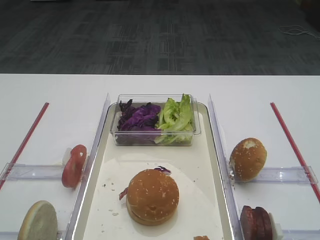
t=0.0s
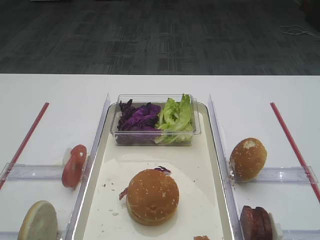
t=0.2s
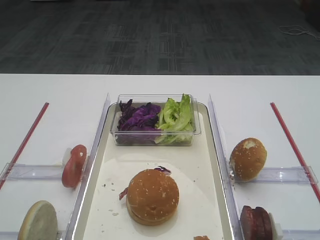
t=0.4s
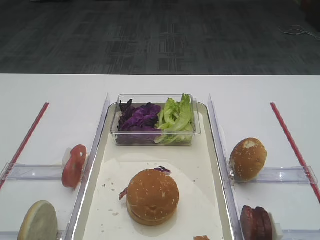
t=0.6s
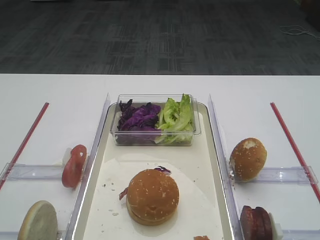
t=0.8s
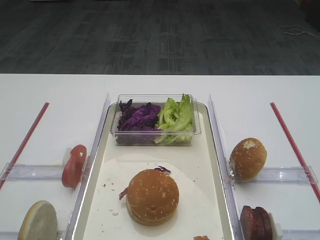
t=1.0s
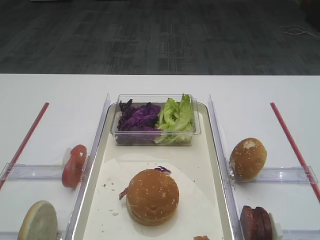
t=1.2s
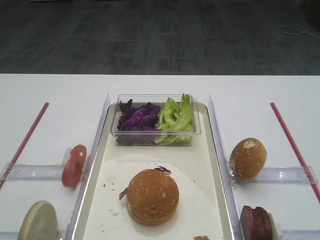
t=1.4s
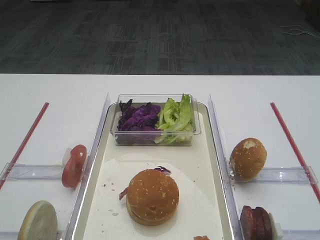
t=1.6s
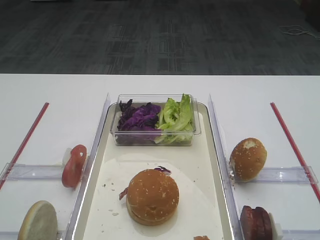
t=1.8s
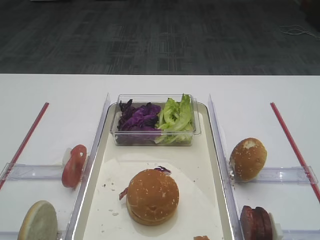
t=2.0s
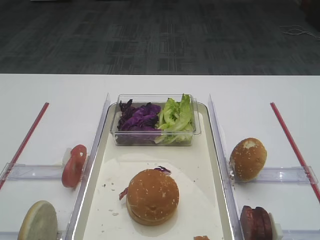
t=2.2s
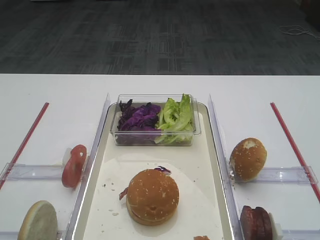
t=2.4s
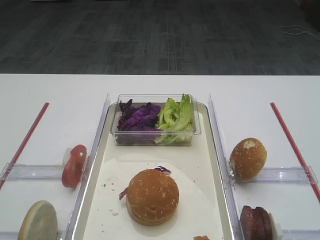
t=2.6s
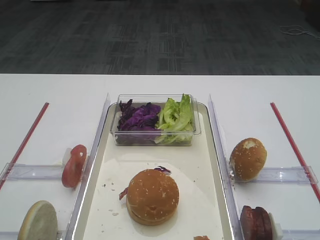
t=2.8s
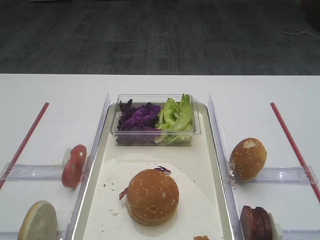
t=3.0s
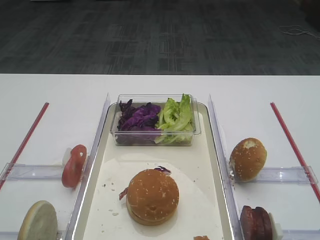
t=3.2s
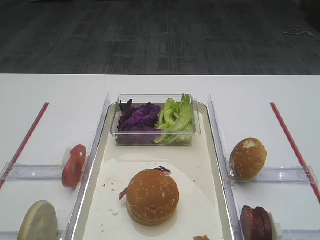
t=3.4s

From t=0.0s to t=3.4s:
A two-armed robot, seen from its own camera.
From t=0.0s to t=3.4s: The two grippers keep their place.

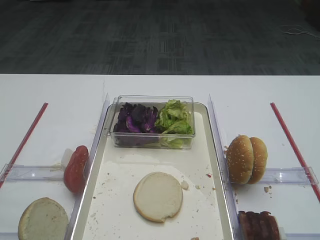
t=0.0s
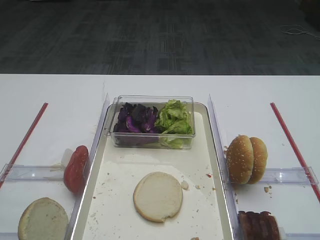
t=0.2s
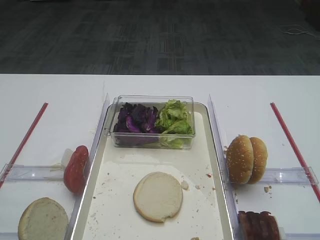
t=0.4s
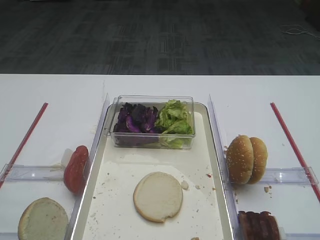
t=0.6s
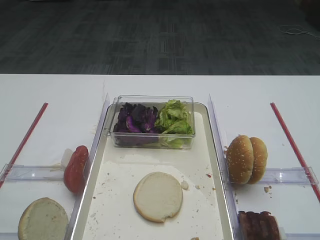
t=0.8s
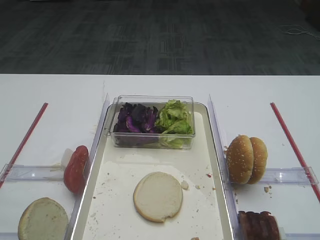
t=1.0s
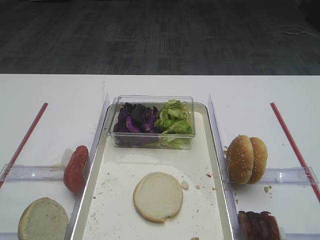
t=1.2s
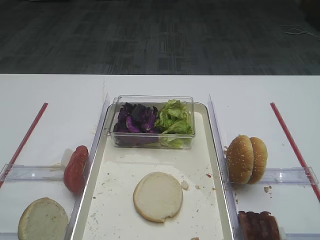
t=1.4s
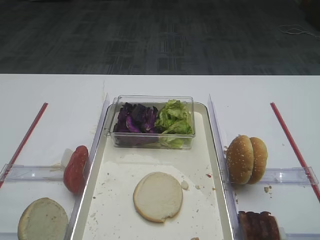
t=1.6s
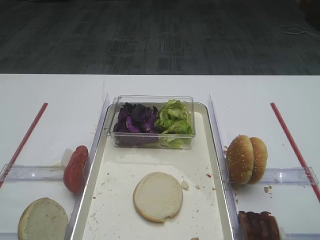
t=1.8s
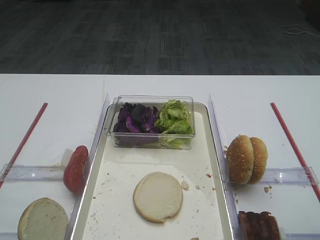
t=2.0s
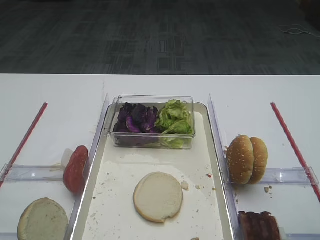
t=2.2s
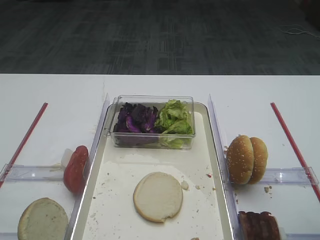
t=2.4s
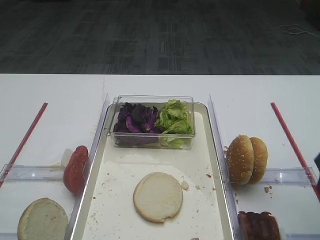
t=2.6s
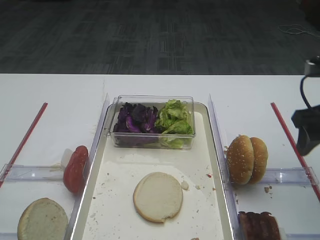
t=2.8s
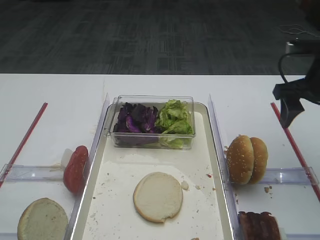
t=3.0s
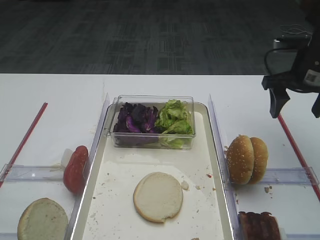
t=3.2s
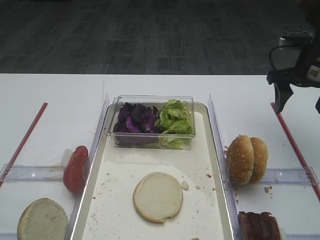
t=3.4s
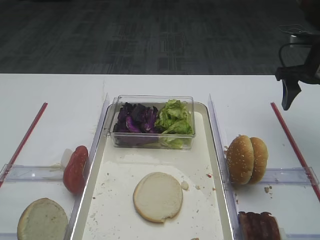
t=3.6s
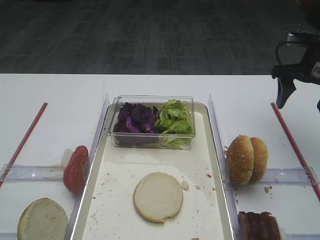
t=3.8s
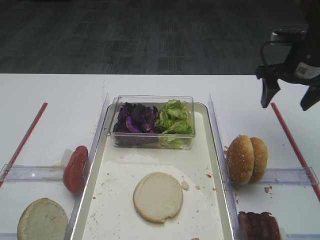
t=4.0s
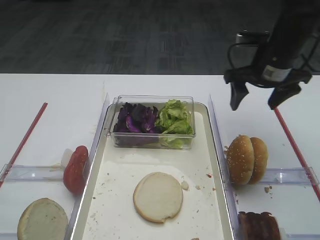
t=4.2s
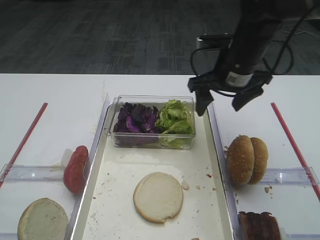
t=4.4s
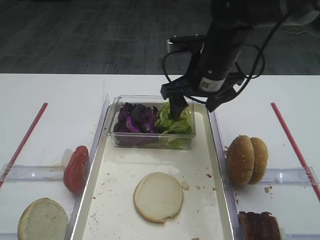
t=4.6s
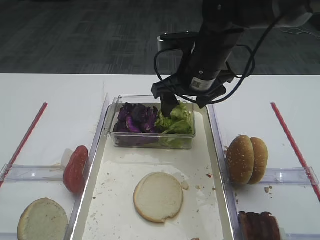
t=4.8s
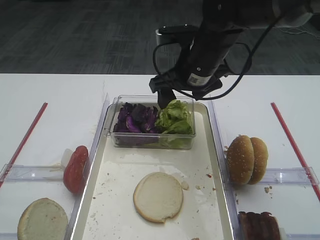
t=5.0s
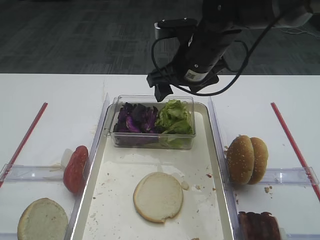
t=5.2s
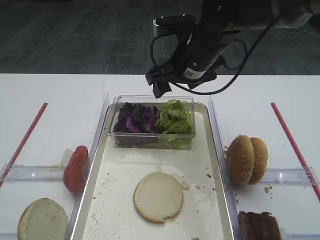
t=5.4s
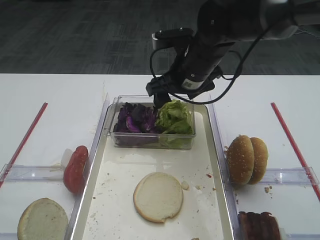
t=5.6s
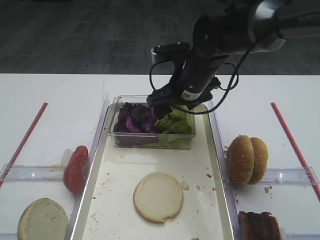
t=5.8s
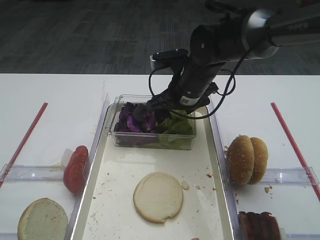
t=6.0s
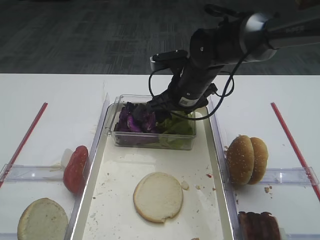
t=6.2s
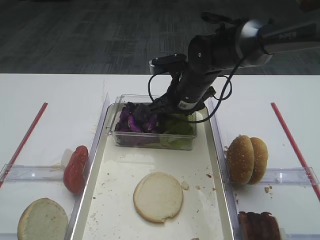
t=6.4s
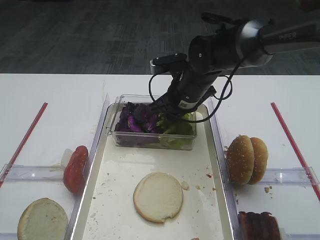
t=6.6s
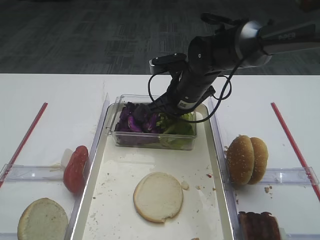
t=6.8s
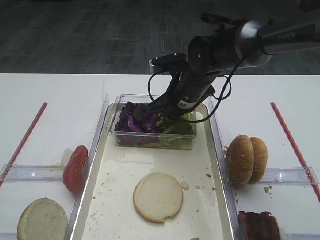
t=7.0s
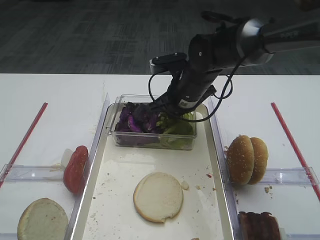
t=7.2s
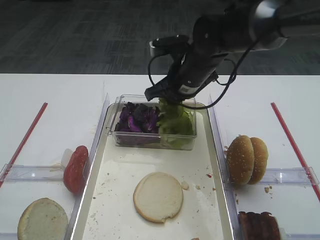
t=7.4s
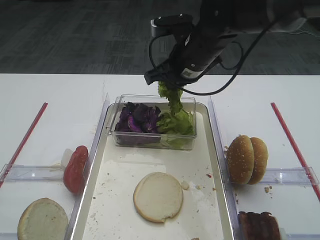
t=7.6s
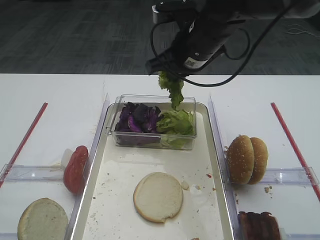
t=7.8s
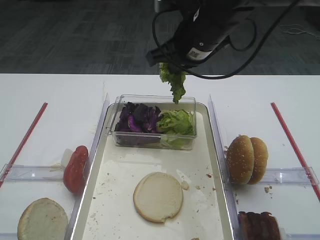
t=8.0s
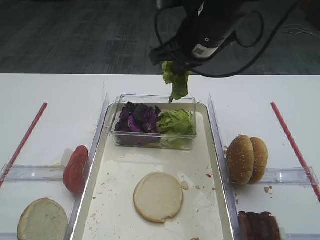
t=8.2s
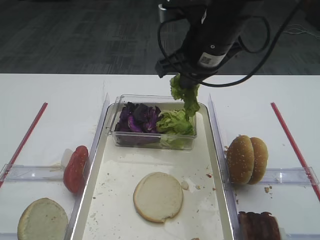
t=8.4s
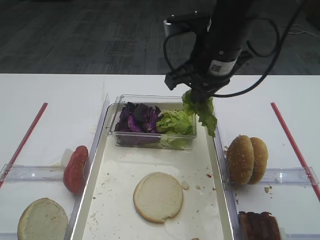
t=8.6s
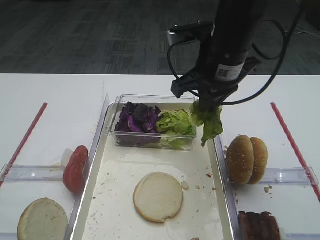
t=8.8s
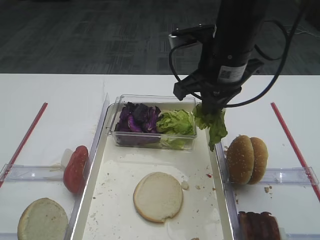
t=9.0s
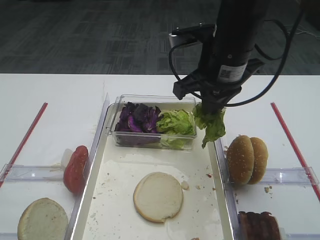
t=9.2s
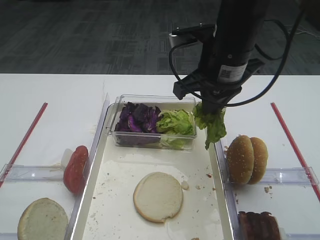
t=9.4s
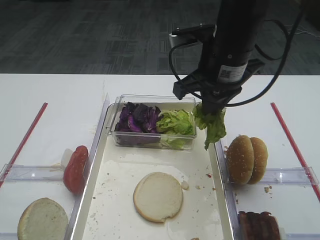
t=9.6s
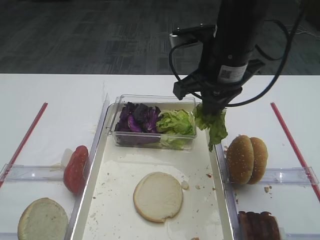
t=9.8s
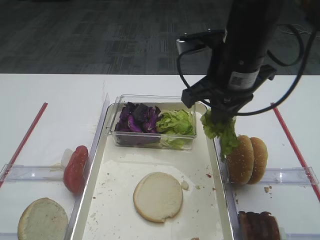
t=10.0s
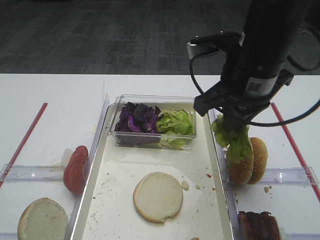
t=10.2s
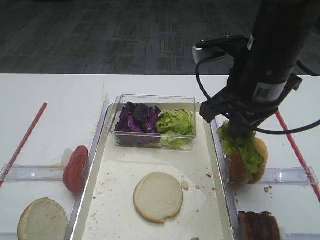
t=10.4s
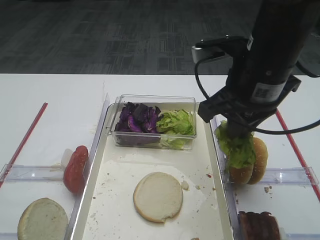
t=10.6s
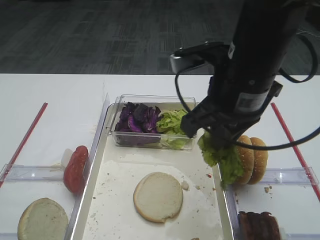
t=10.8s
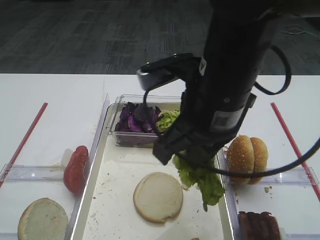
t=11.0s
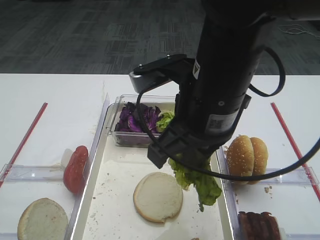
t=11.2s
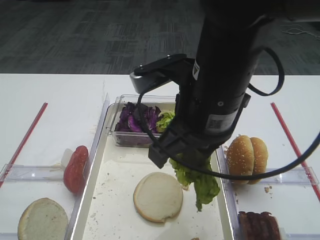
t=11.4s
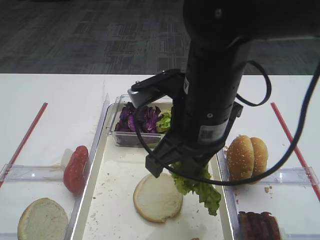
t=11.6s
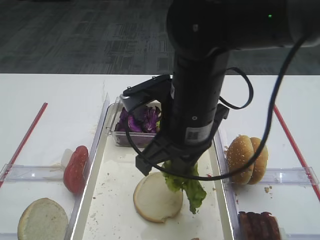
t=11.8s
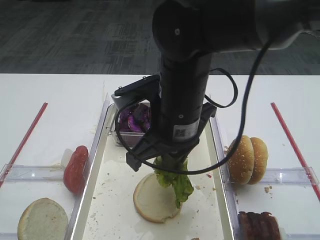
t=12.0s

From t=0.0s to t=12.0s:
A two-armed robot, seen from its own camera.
Step, from t=0.0s to t=7.8s: Pick up the lettuce leaf with the right gripper.
From t=1.6s to t=3.0s: The right gripper goes about 20 cm forward.
From t=3.0s to t=4.4s: The right gripper heads to the left, covering some 15 cm.
From t=4.4s to t=6.0s: The right gripper heads to the left and downward, covering roughly 10 cm.
From t=6.0s to t=7.6s: The right gripper shifts roughly 5 cm upward, and closes its fingers.
From t=7.6s to t=9.0s: The right gripper shifts approximately 5 cm backward.
From t=9.0s to t=10.4s: The right gripper travels backward by roughly 5 cm.
From t=10.4s to t=12.0s: The right gripper moves to the left, some 10 cm.

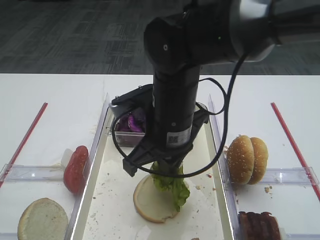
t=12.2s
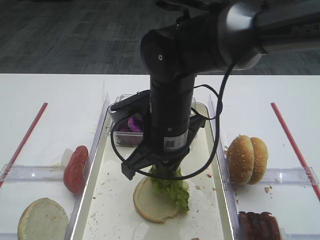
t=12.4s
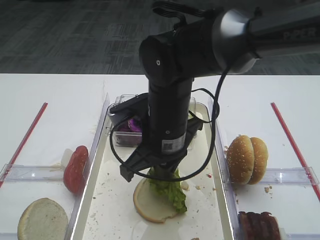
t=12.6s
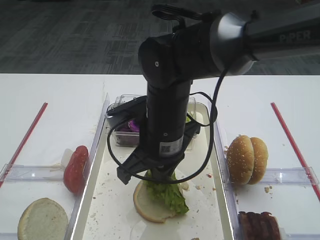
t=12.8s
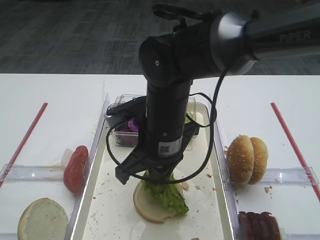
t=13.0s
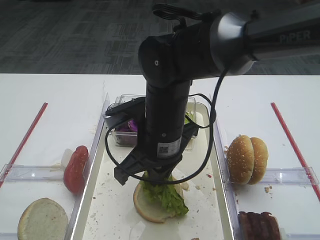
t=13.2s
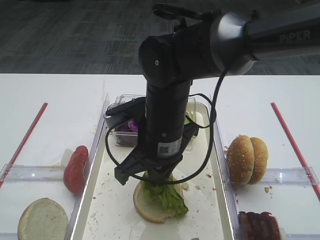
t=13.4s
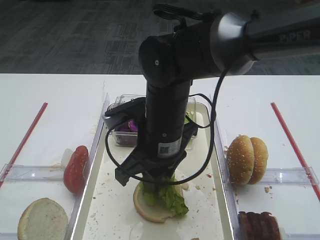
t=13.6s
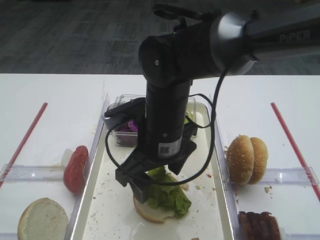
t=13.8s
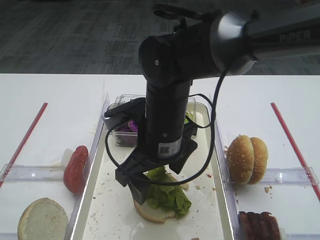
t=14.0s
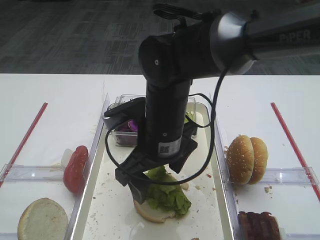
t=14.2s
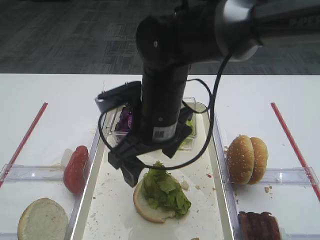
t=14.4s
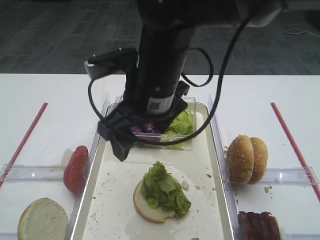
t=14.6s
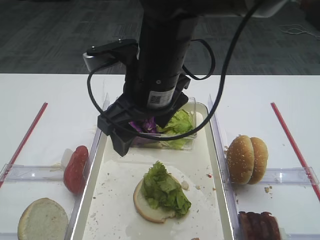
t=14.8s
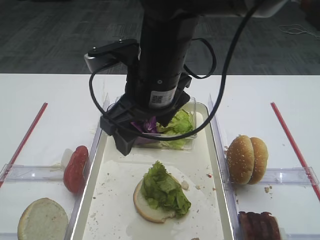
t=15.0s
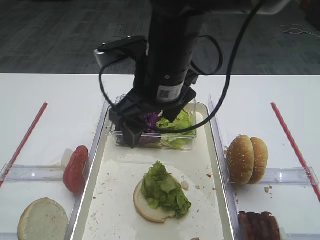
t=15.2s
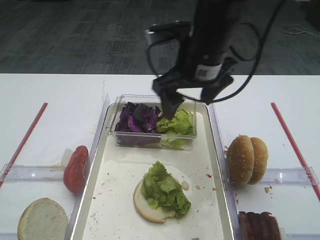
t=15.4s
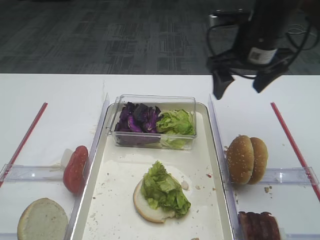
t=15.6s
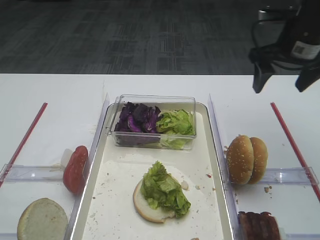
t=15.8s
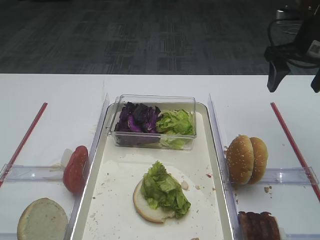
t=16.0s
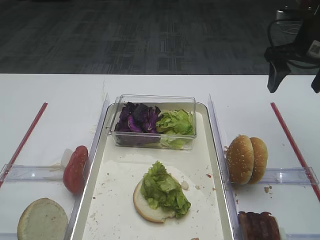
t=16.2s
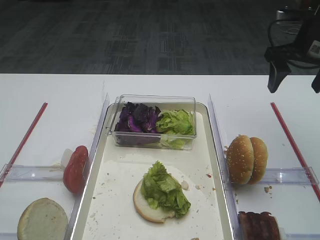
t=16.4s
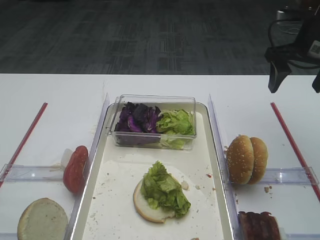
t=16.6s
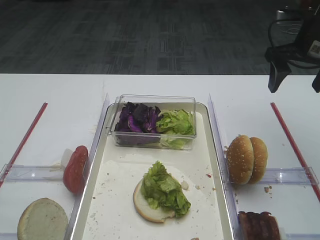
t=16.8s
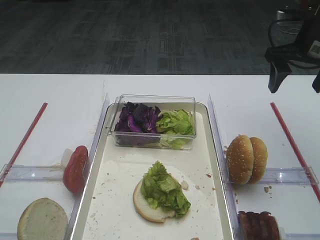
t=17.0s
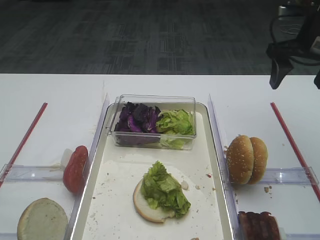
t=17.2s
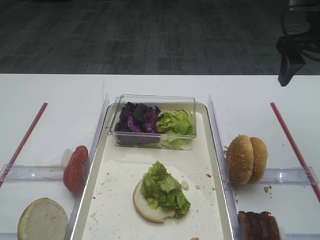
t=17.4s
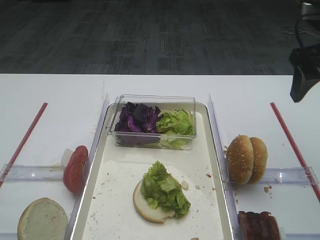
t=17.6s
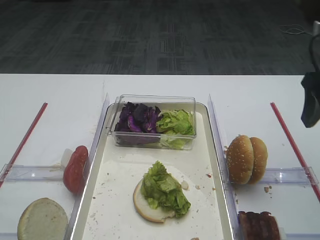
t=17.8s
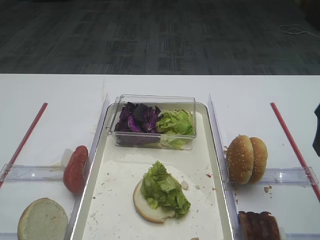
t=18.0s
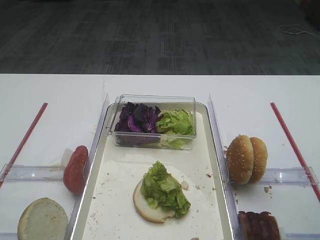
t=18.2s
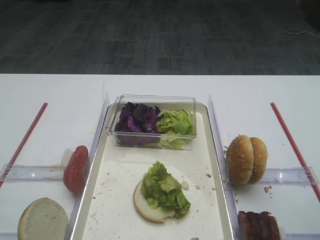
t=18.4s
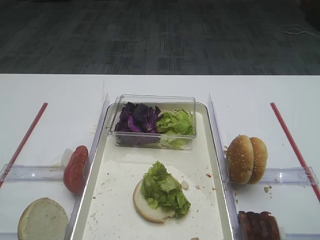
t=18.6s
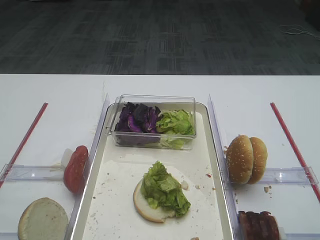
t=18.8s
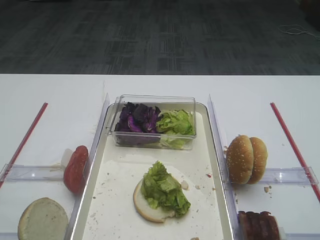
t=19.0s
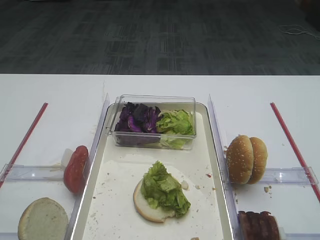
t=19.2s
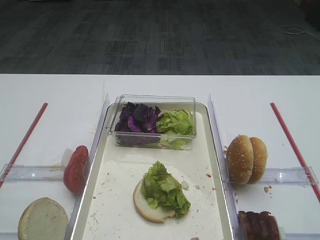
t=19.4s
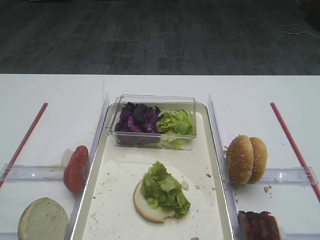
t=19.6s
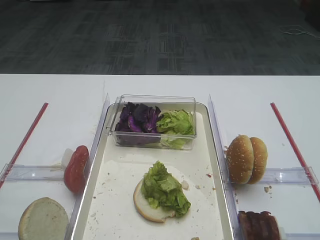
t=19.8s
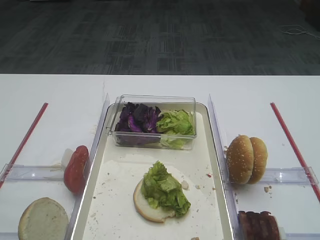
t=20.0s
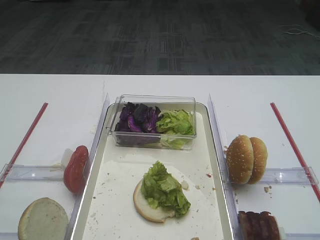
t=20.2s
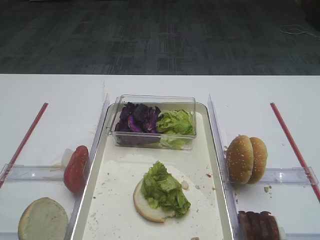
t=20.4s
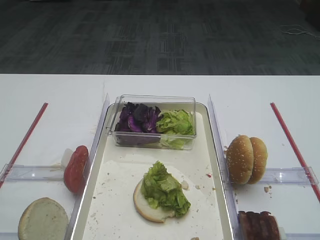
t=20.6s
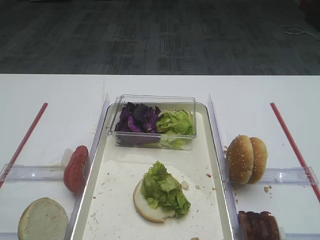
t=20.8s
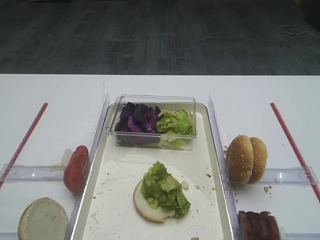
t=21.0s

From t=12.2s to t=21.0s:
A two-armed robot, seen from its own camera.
Step, from t=12.2s to t=14.4s: Place the lettuce leaf on the bread slice with the right gripper.
From t=12.2s to t=13.6s: The right gripper opens.
From t=13.6s to t=15.2s: The right gripper goes approximately 10 cm upward, and opens.
From t=15.2s to t=16.6s: The right gripper is displaced to the right by approximately 25 cm.
From t=16.6s to t=18.0s: The right gripper moves backward, some 15 cm.
From t=18.0s to t=19.6s: The right gripper goes some 20 cm backward.
From t=19.6s to t=21.0s: Both grippers stay put.
